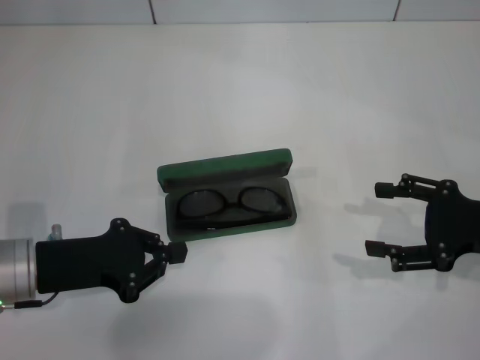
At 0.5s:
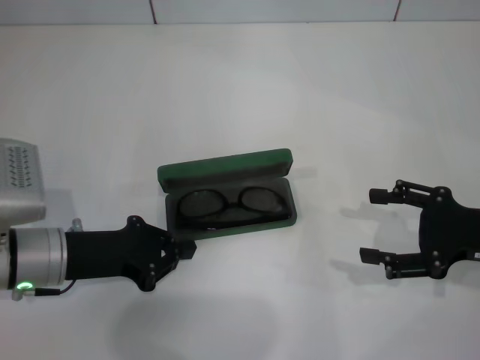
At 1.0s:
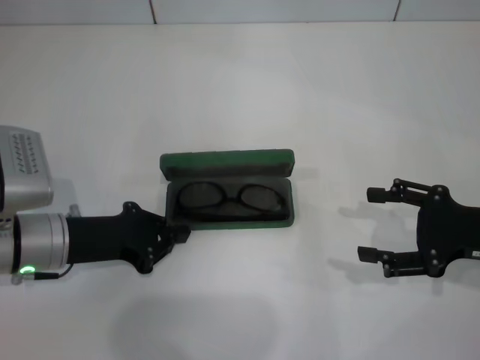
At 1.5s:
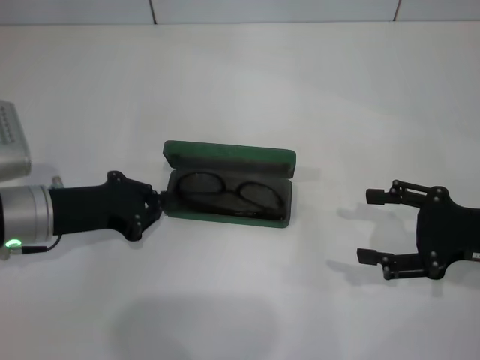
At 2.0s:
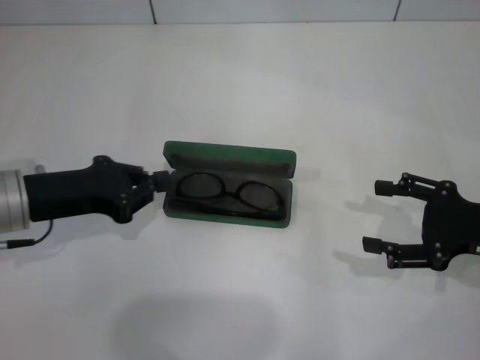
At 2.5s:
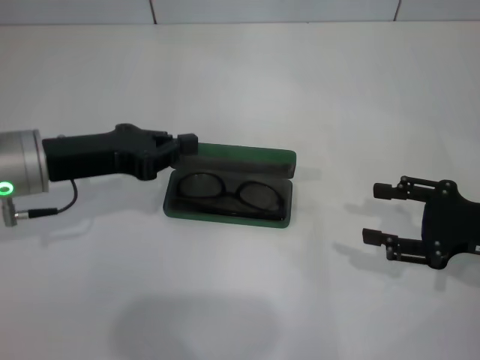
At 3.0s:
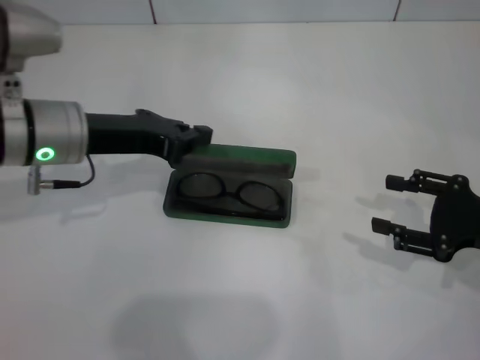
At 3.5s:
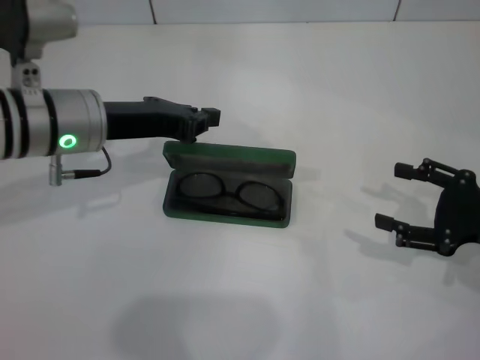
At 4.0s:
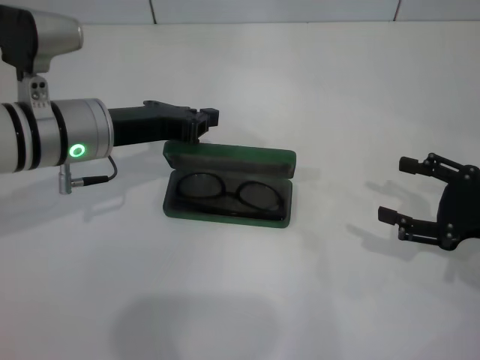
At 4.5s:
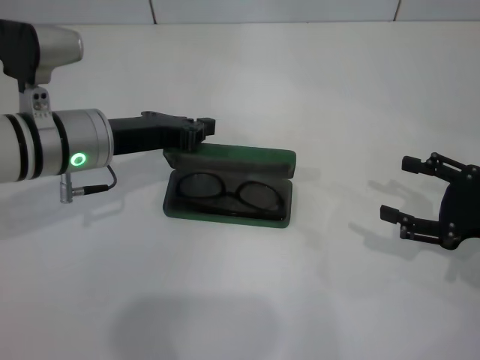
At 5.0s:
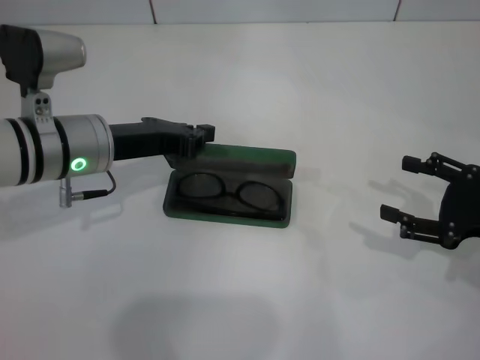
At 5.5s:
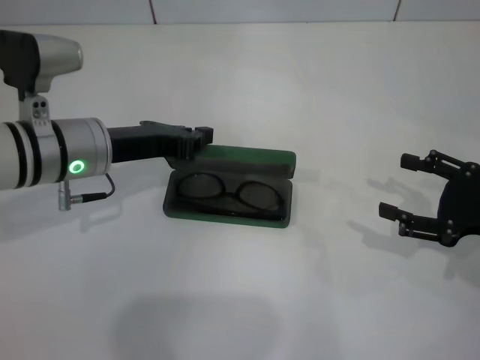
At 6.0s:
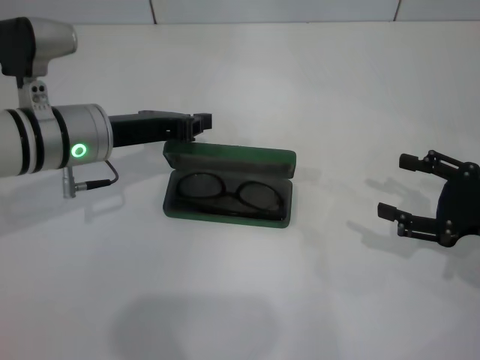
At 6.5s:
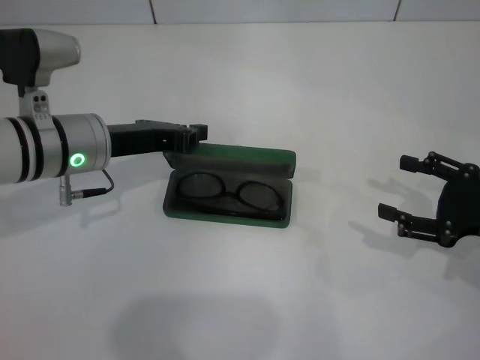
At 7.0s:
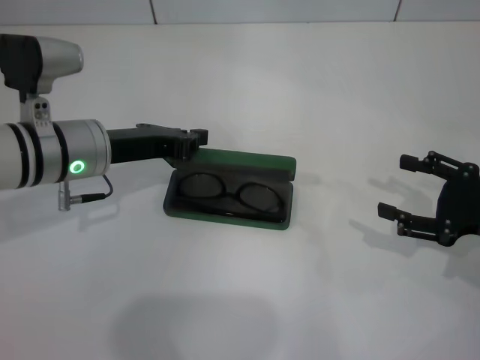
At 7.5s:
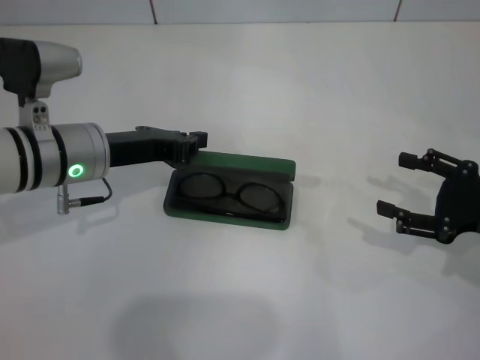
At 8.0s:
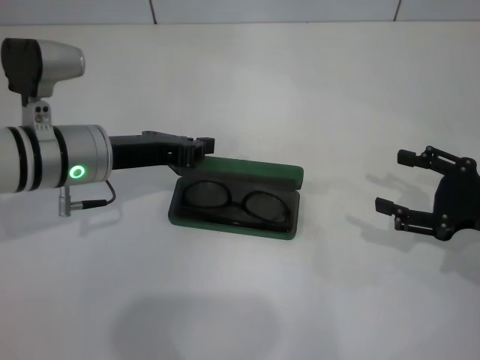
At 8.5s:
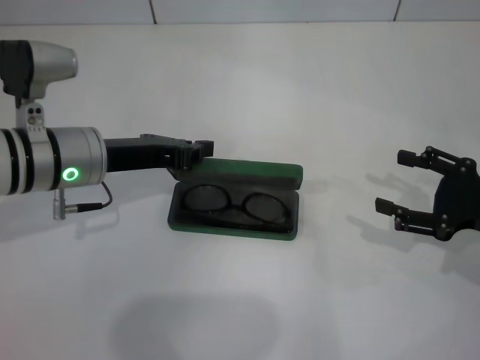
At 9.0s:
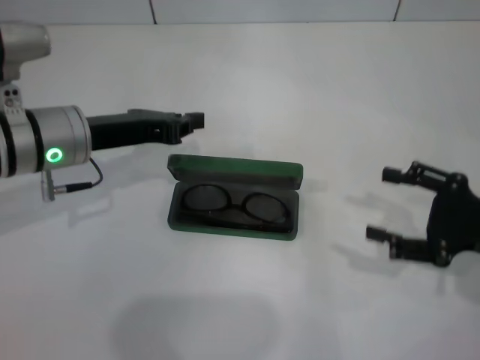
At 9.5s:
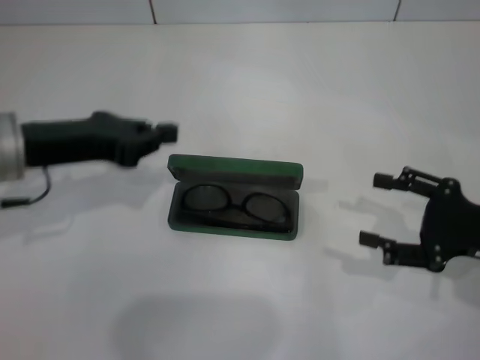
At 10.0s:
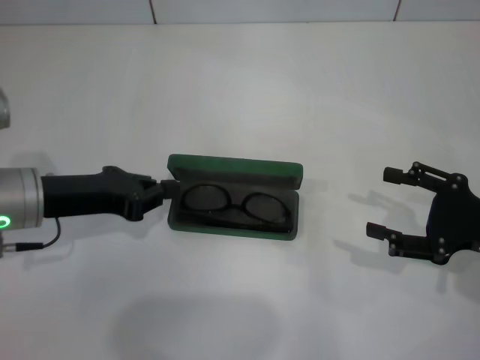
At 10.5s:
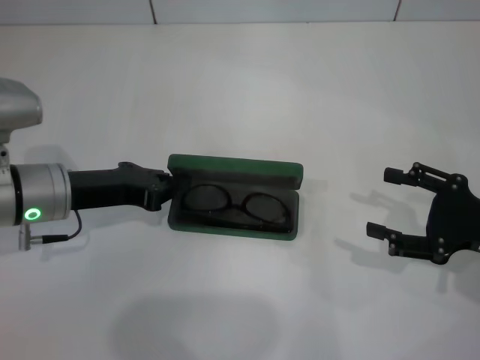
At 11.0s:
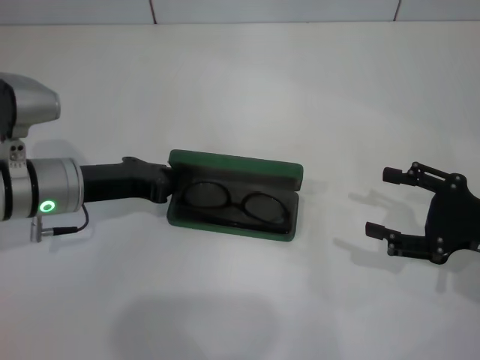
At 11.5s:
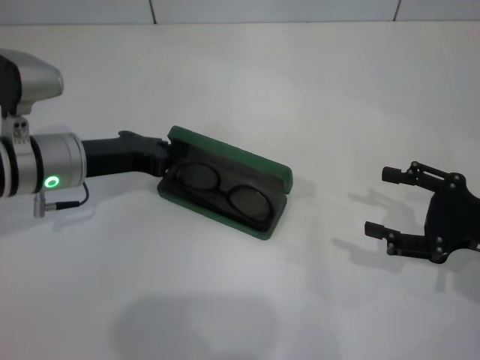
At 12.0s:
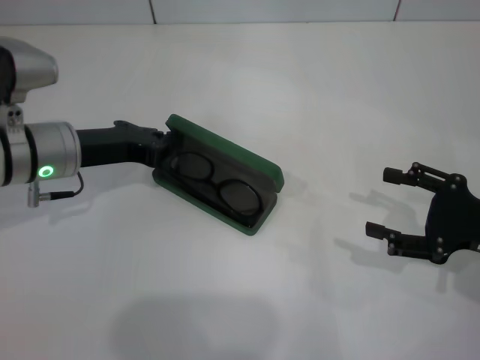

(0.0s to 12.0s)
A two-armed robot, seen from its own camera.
0.0s - 2.0s: The left gripper moves roughly 5 cm.
2.0s - 4.0s: The right gripper closes, then opens again; the left gripper heads to the right, covering about 10 cm.
4.0s - 8.0s: There are only small adjustments of the grippers.
8.0s - 10.0s: The left gripper travels to the left by about 5 cm.
10.0s - 12.0s: The left gripper moves forward, roughly 5 cm.

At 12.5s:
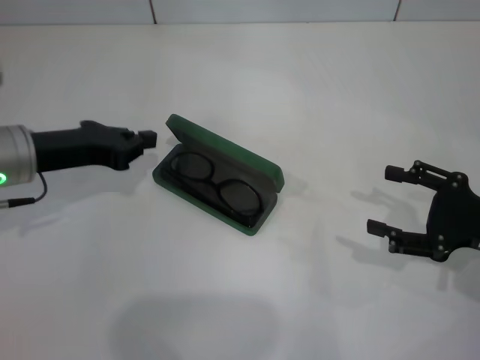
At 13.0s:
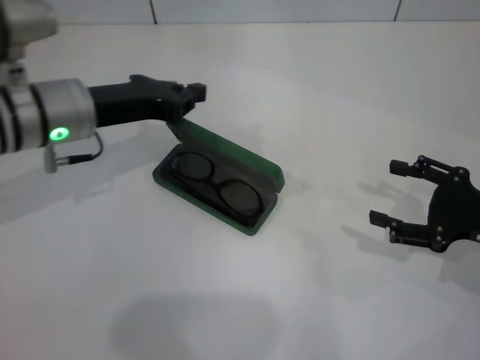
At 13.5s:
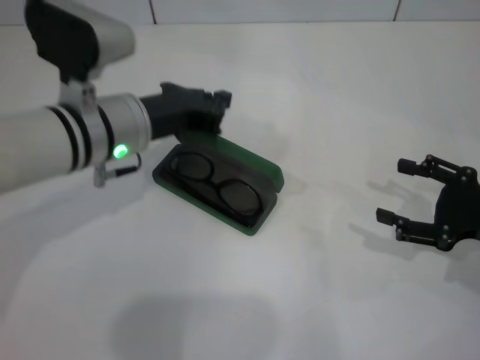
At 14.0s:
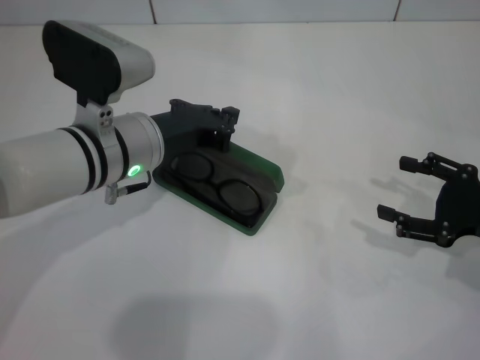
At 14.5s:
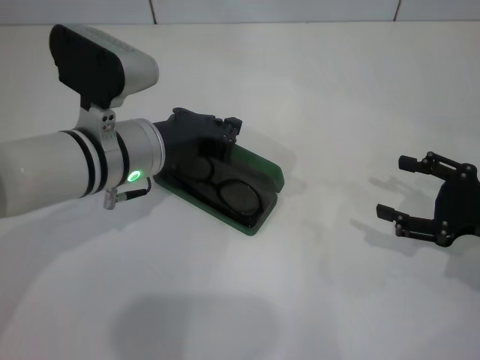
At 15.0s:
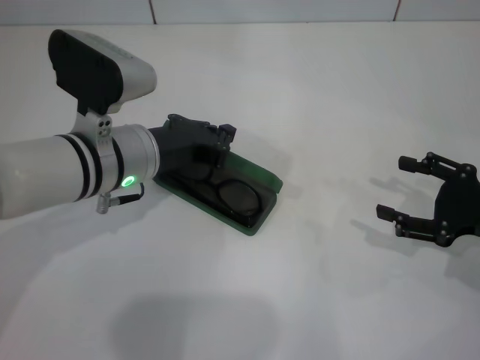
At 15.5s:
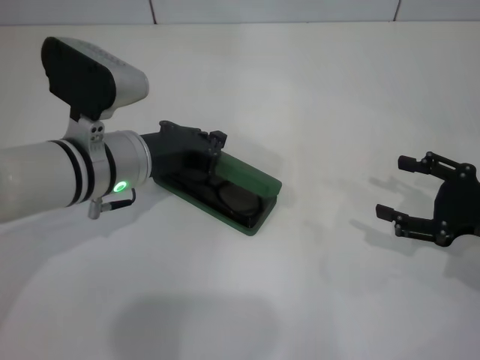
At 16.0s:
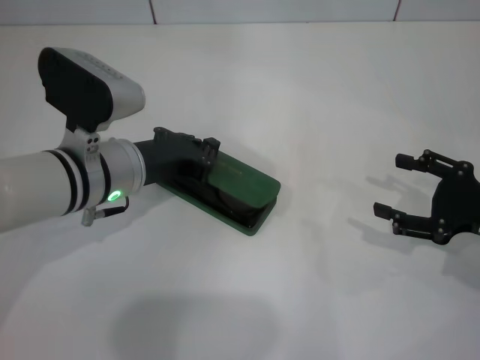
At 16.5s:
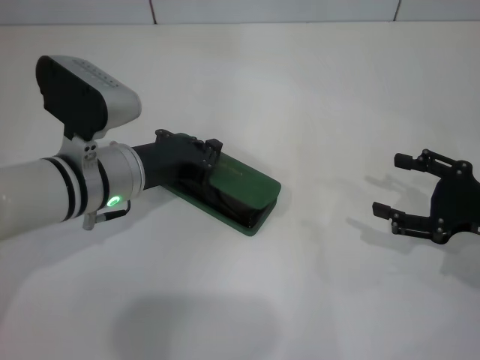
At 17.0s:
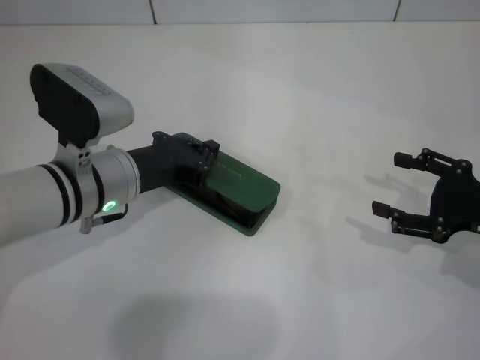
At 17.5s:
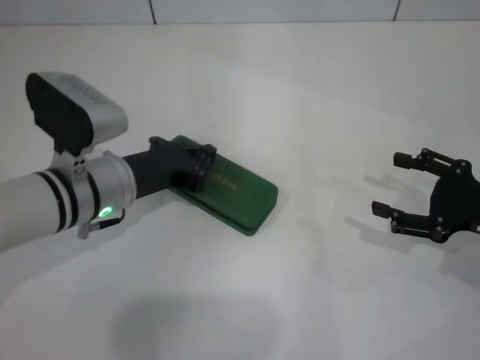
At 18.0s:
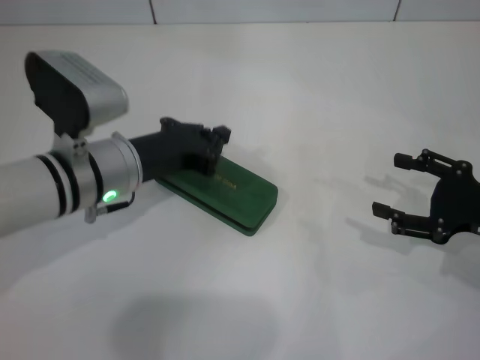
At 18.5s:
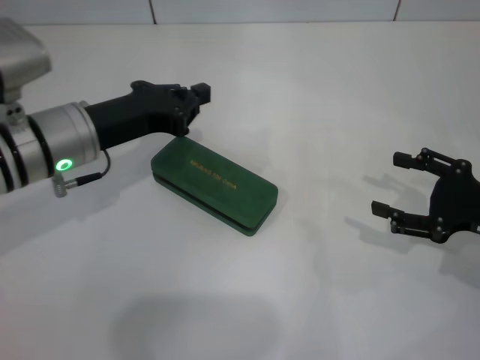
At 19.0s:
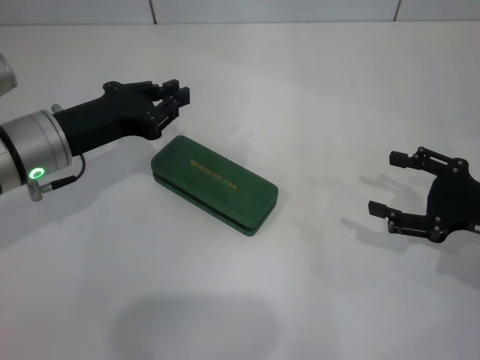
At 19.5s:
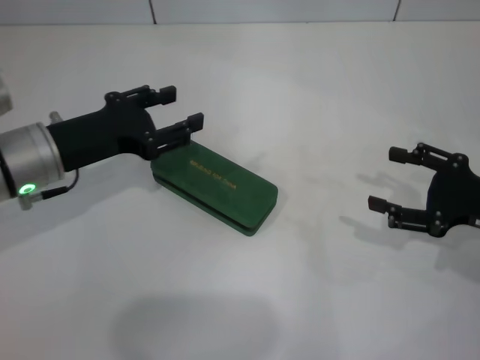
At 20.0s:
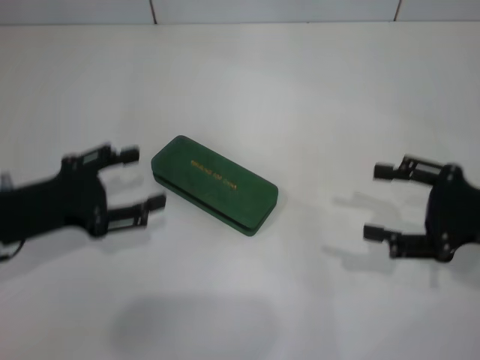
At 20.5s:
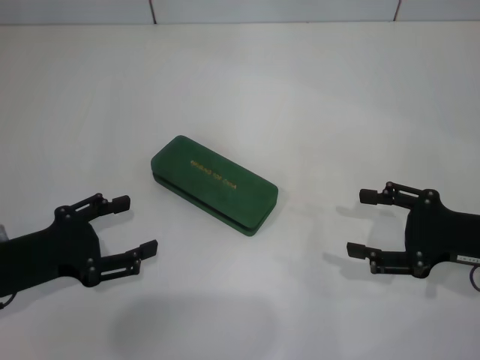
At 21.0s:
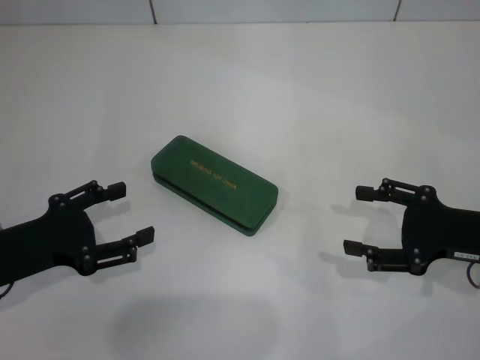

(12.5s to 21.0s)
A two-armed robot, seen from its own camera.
Step, 12.5s - 17.5s: Close the glasses case with your left hand.
12.5s - 14.5s: The left gripper shifts approximately 10 cm to the right.
14.5s - 16.5s: The grippers make only small movements.
16.5s - 19.0s: The left gripper moves to the left, some 5 cm.
19.0s - 21.0s: The left gripper goes roughly 10 cm backward and to the left, and opens its fingers.

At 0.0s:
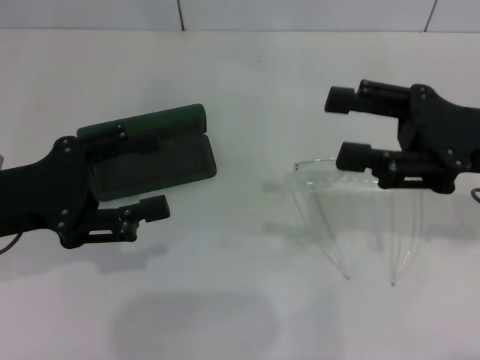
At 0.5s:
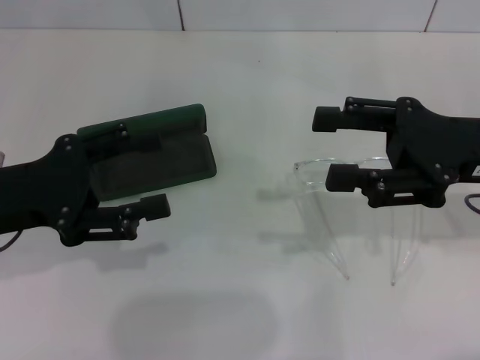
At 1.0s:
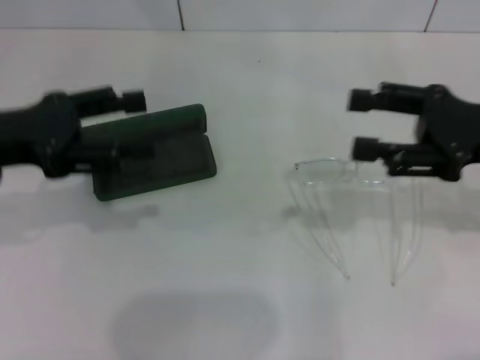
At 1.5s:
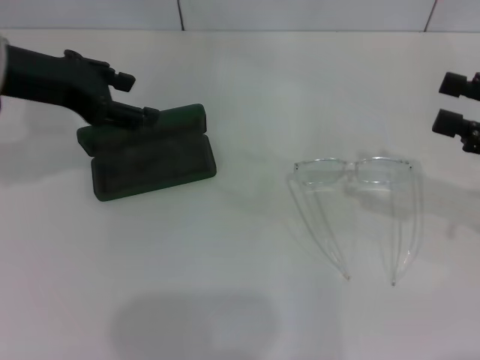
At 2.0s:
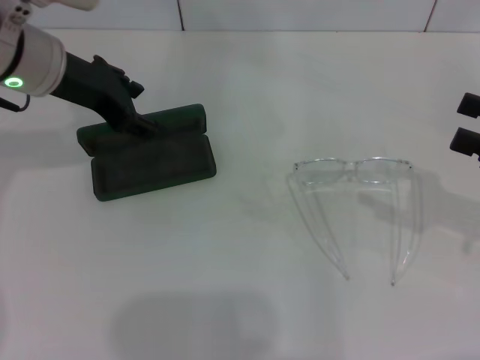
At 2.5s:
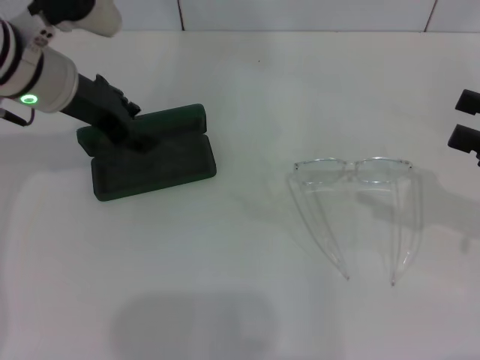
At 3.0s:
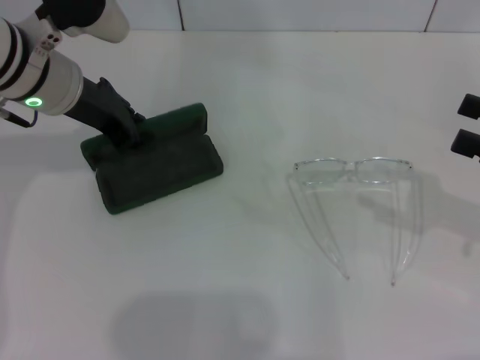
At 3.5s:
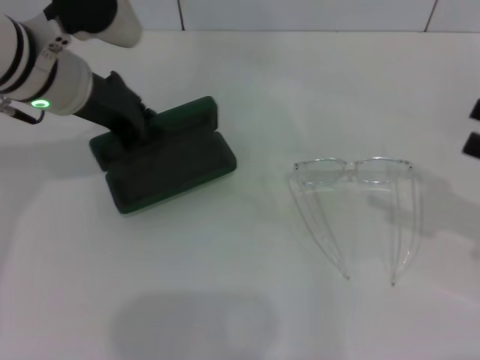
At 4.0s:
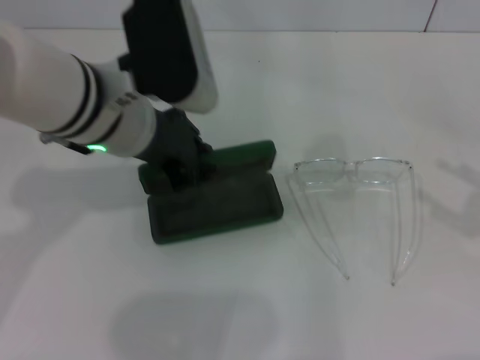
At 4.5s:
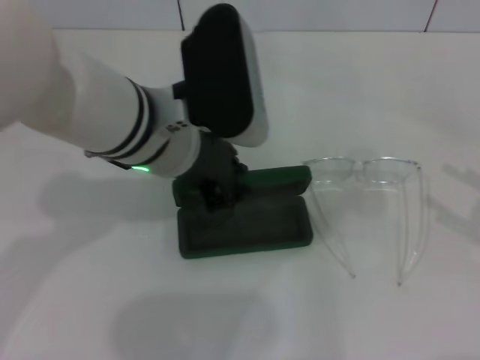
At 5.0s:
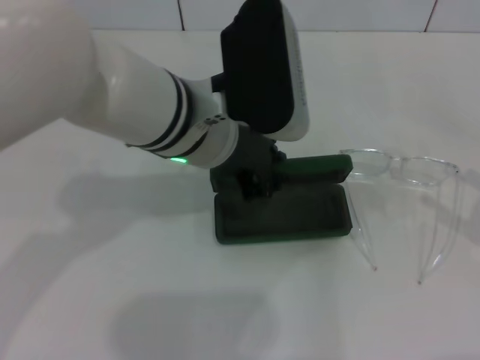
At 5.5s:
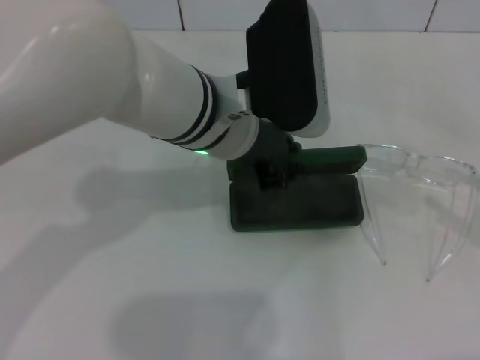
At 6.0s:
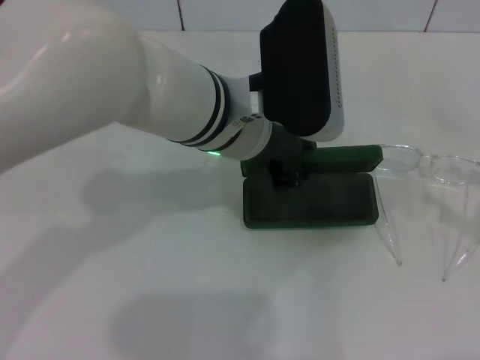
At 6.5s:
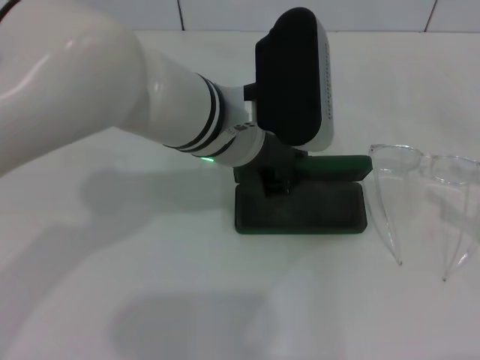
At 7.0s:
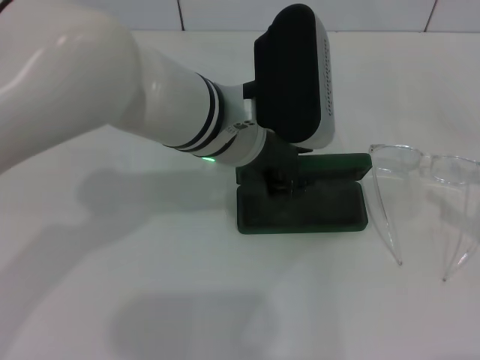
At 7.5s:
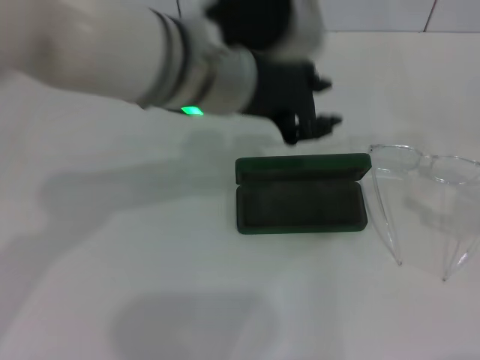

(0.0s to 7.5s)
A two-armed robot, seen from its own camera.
Step, 0.0s - 3.0s: Grab the glasses case with your left hand.
Step, 3.5s - 7.0s: Place the glasses case in the center of the table with your left hand.
0.0s - 2.0s: The right gripper shifts approximately 10 cm to the right, while the left gripper heads forward, to the right and upward, covering about 15 cm.
2.0s - 4.0s: The left gripper is displaced to the right and backward by roughly 10 cm, and closes, while the right gripper shifts by about 5 cm.
4.0s - 5.5s: The left gripper shifts some 10 cm to the right.
5.5s - 7.5s: The left gripper changes place by some 5 cm.
